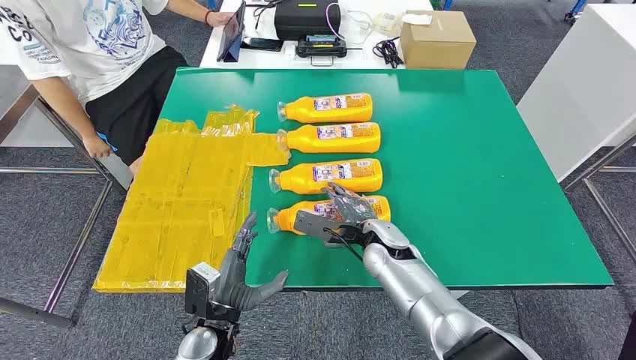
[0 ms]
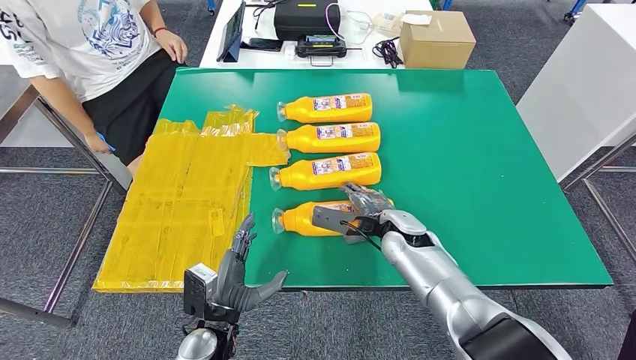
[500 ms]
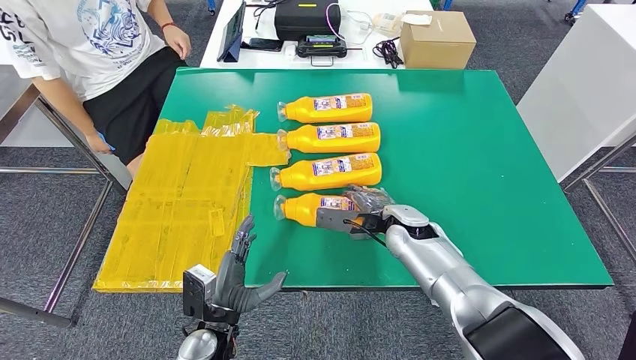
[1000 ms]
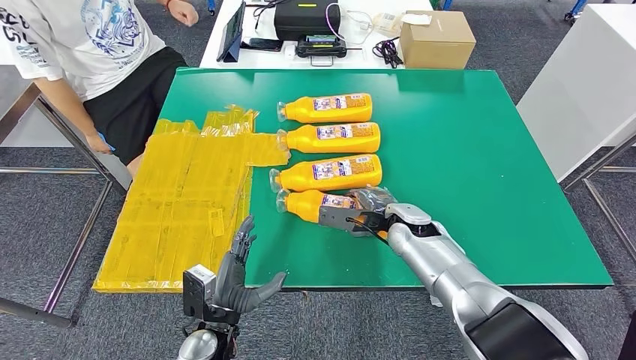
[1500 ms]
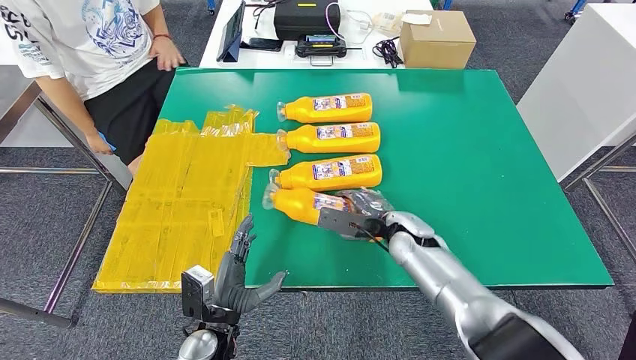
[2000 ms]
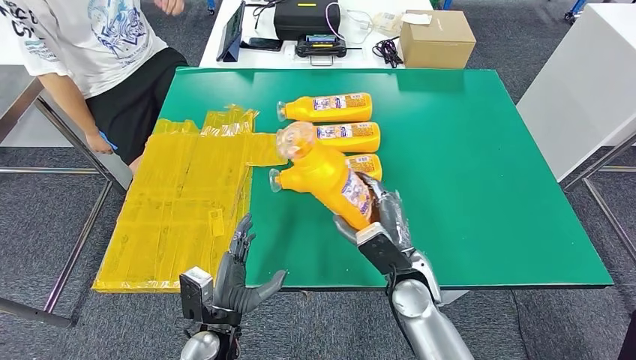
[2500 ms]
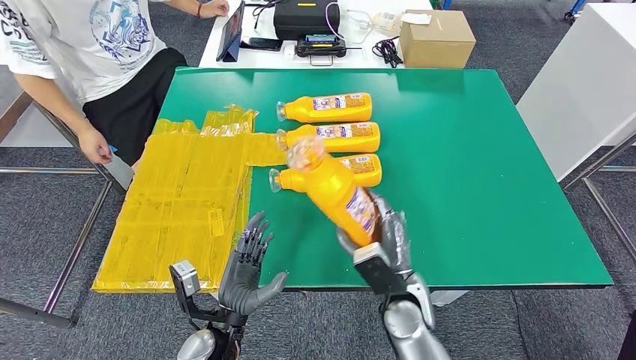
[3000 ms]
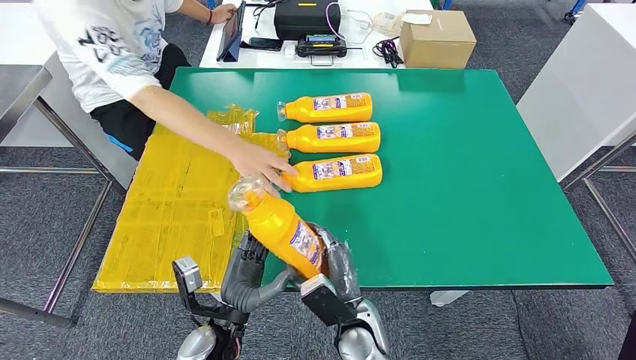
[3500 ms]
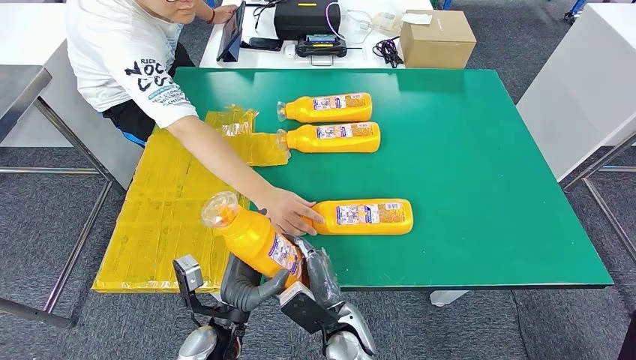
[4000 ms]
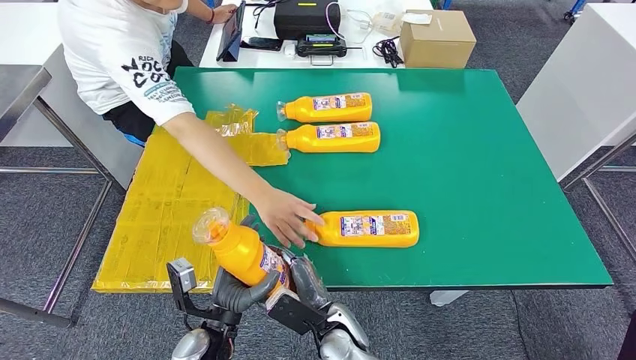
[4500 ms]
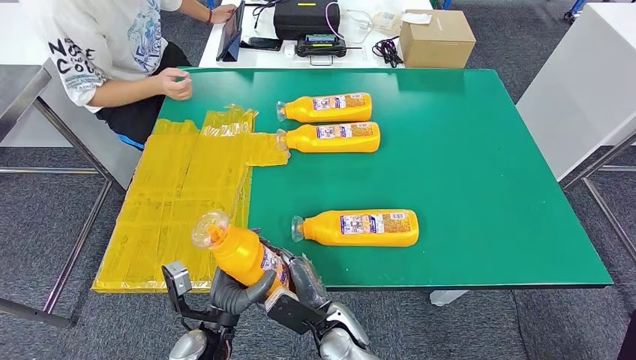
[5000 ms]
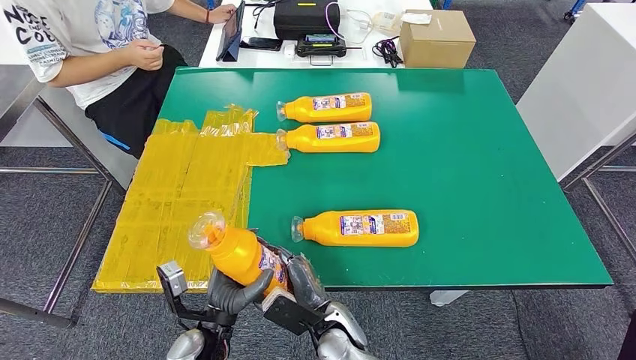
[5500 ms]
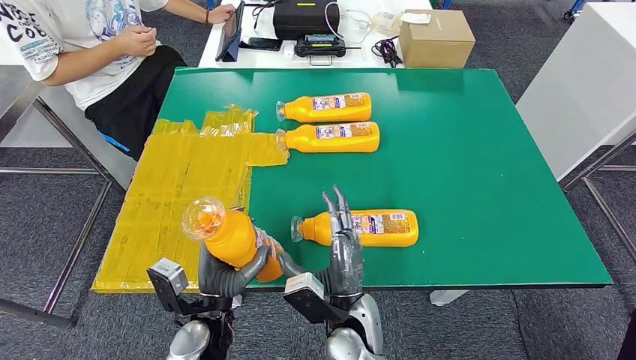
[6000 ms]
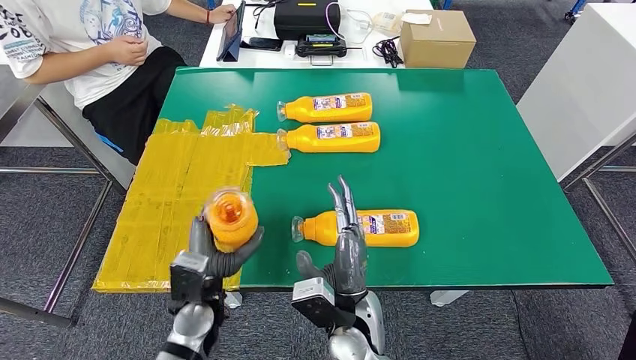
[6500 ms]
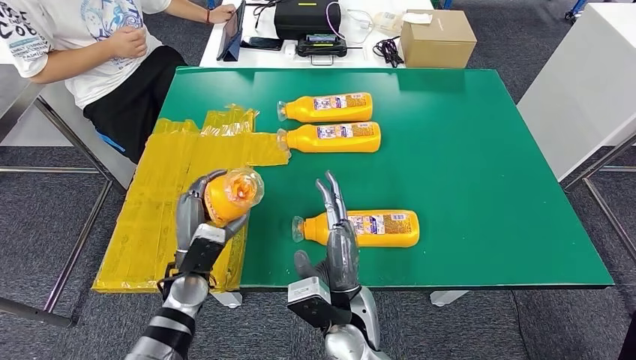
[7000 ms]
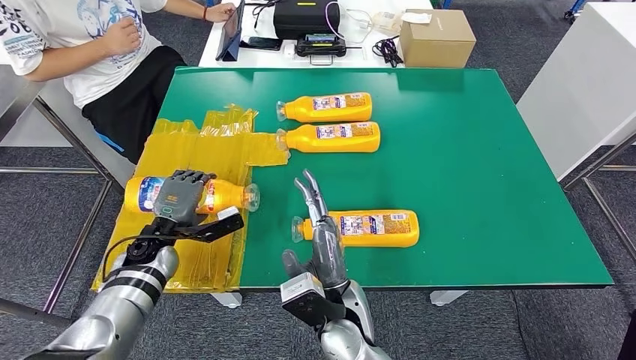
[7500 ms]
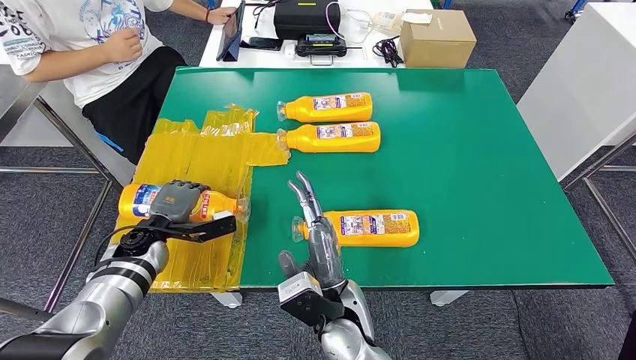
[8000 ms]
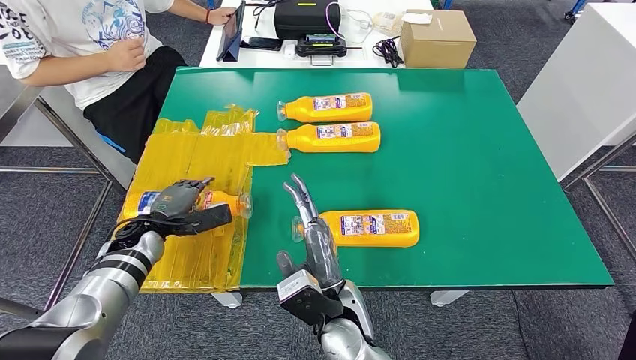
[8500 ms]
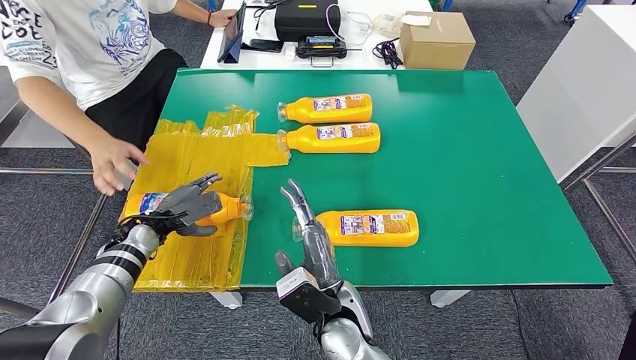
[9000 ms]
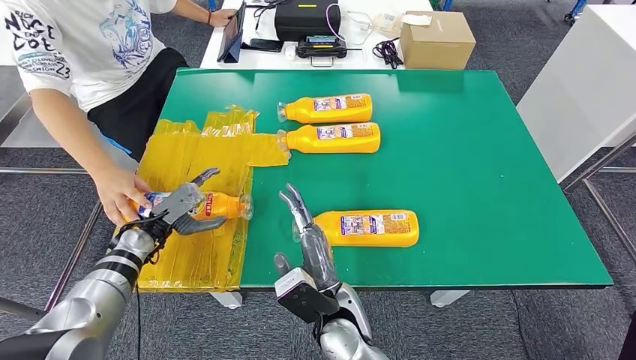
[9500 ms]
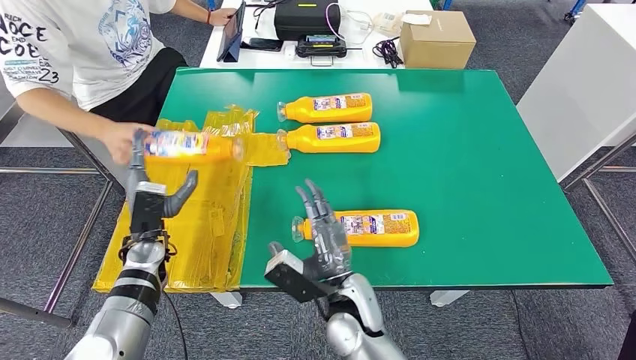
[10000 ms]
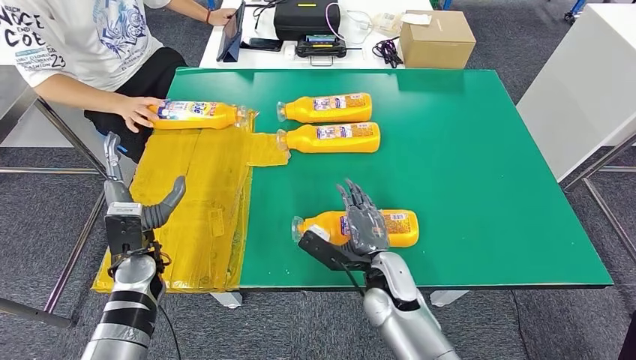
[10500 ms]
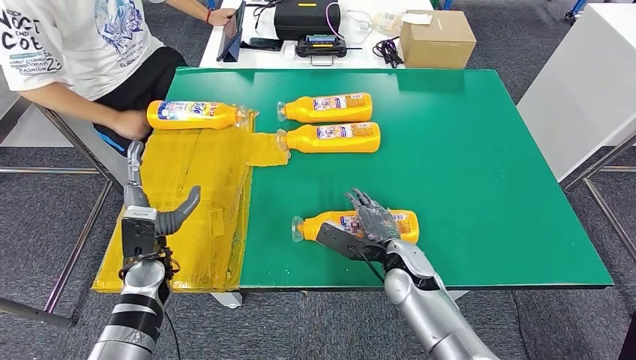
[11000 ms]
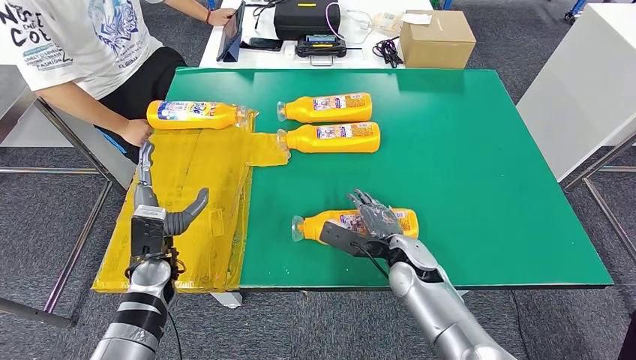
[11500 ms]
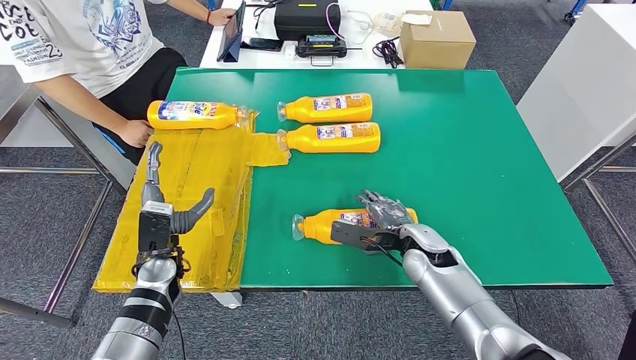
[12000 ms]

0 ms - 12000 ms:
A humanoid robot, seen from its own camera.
Step, 0 ms - 3500 ms: Take the fast-moving consumer goods bottle from the table.
Step, 4000 ms - 9000 ms: Flip the fast-moving consumer goods bottle to the front side.
6000 ms - 8000 ms: The left hand heads forward and to the left, covering some 20 cm.

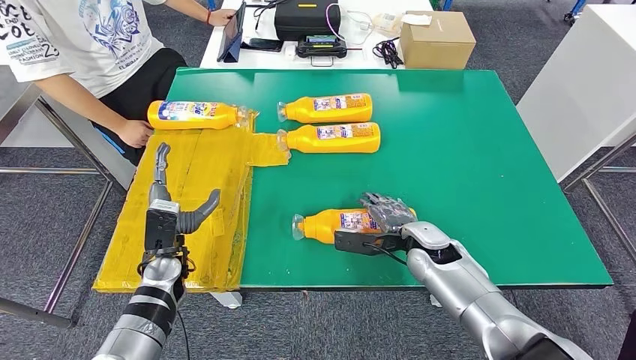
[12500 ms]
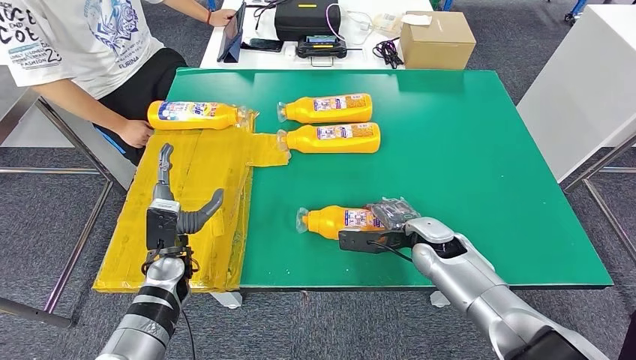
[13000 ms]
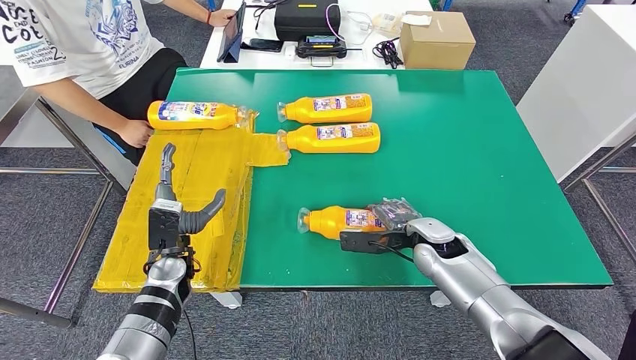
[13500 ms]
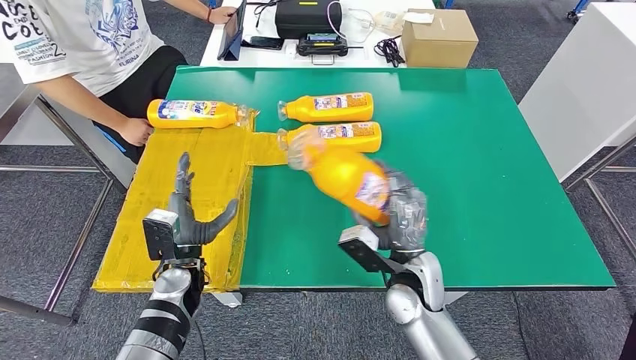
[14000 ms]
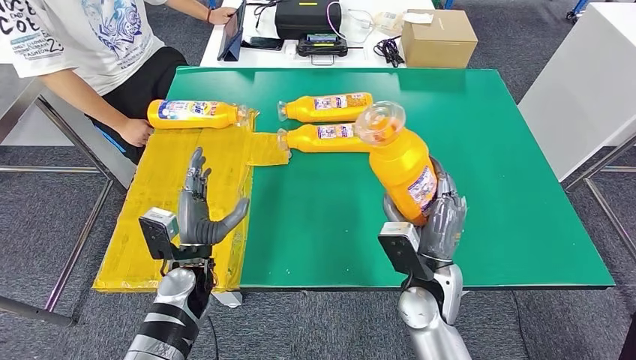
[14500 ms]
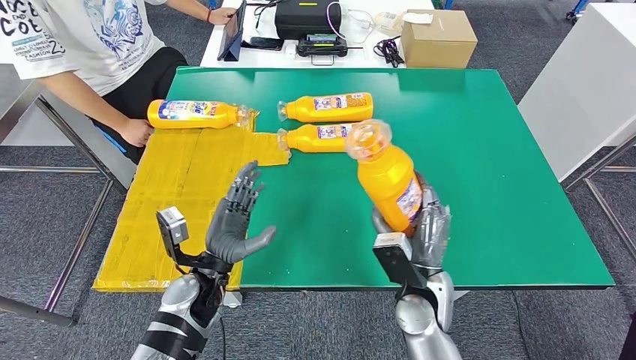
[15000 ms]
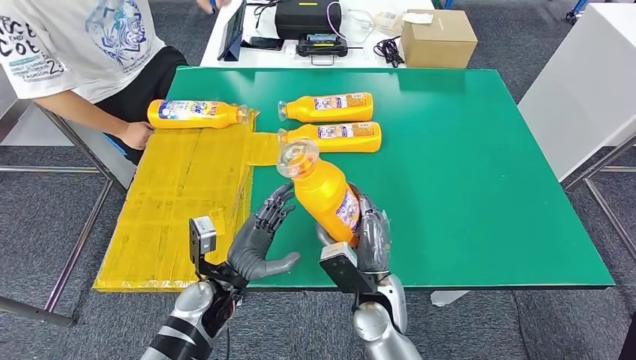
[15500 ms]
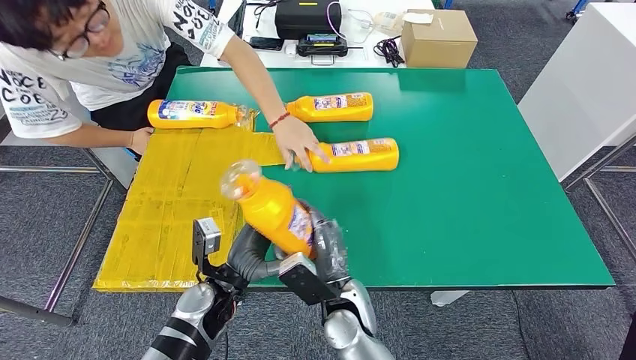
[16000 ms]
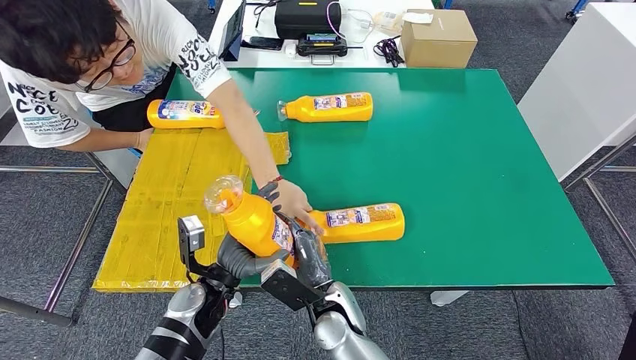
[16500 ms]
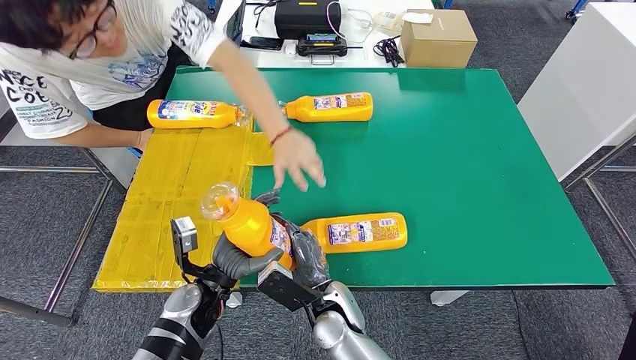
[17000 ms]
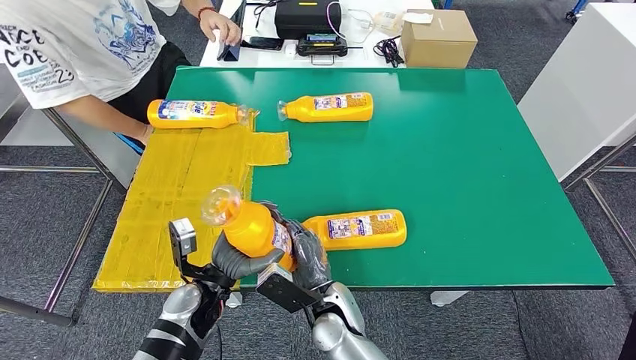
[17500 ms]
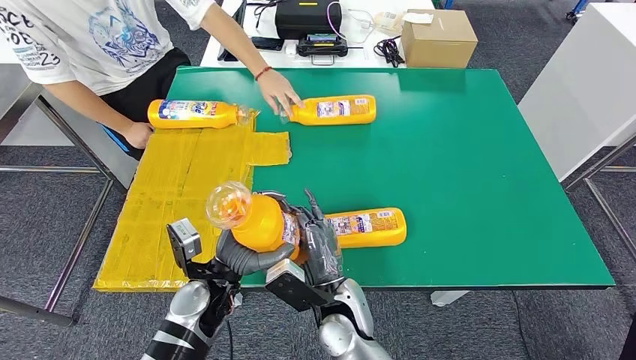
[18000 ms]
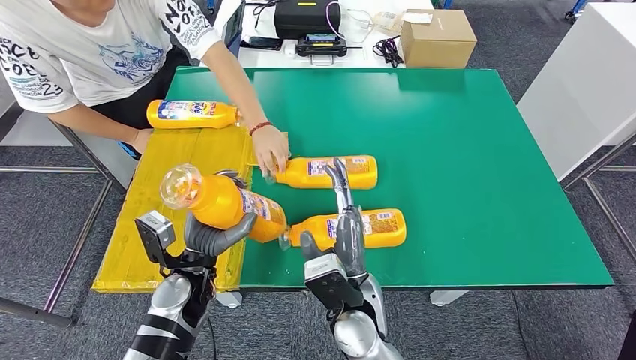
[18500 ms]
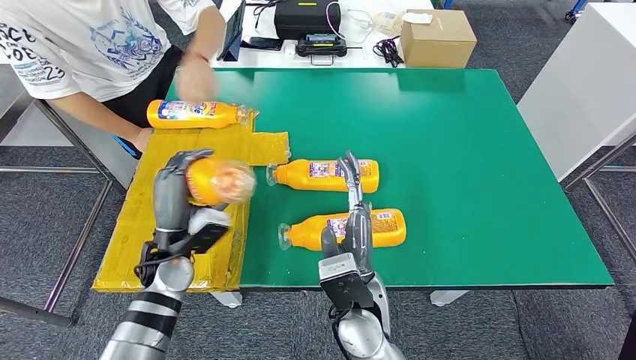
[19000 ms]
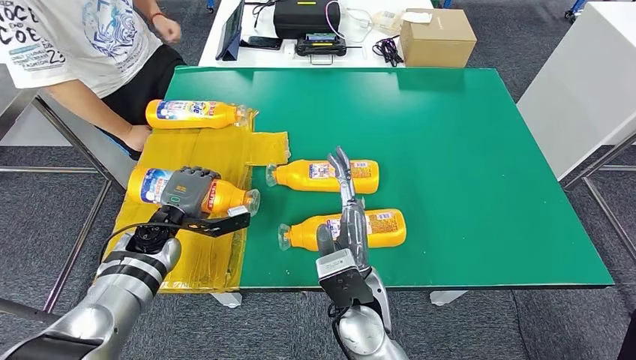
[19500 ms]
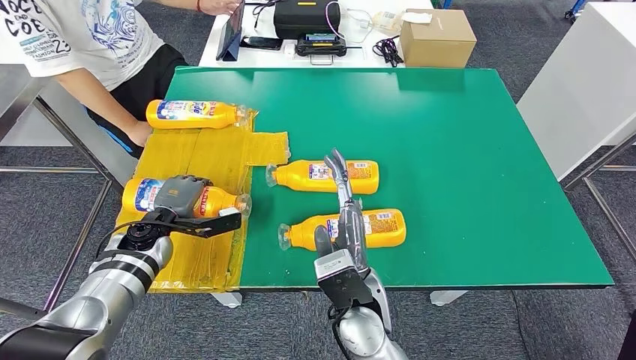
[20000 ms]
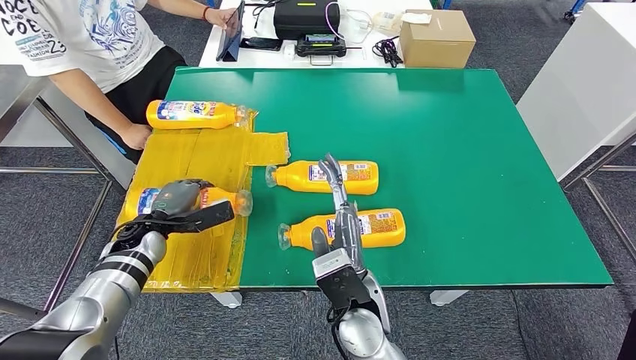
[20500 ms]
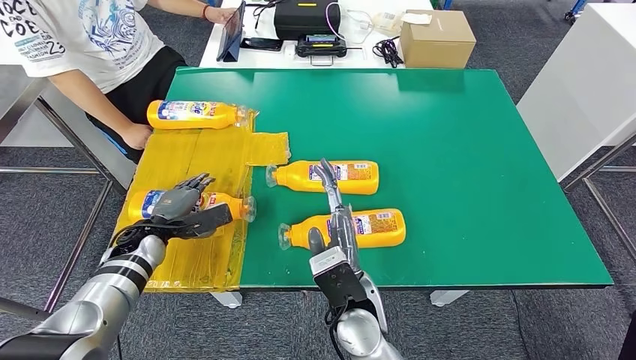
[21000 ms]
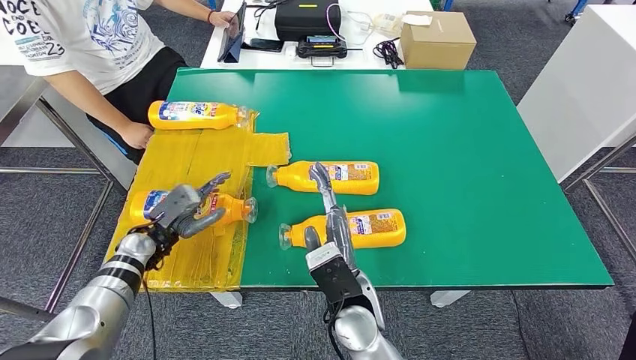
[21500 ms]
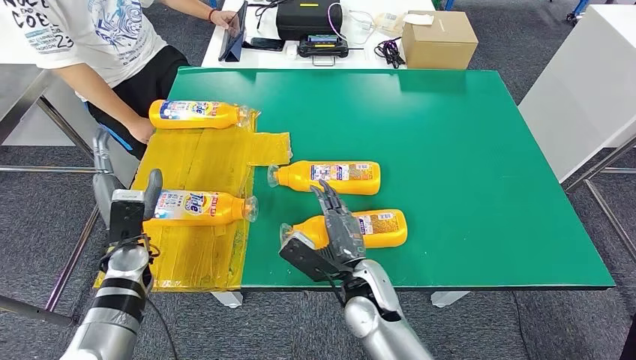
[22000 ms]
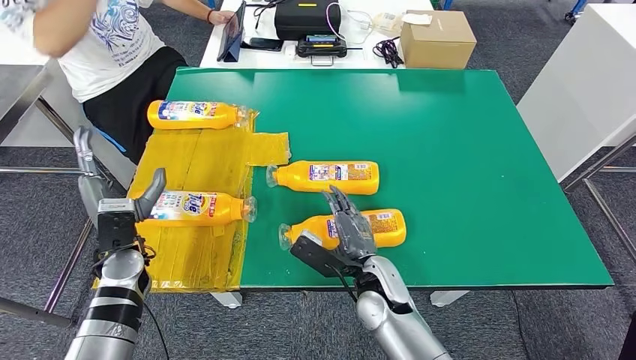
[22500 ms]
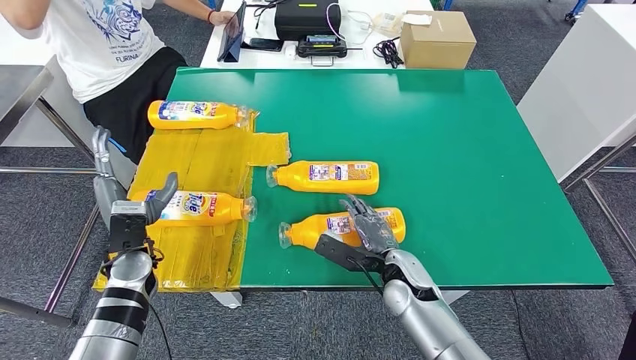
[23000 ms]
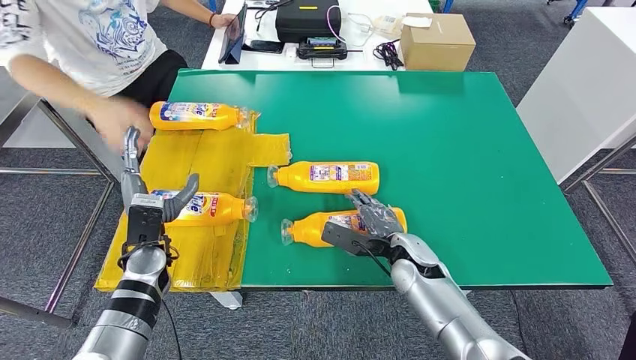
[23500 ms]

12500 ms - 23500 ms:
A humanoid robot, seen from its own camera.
Step, 12500 ms - 15500 ms: Pick up the fast-moving consumer goods bottle from the table.
Step, 16000 ms - 21000 ms: Flip the fast-moving consumer goods bottle to the front side.
